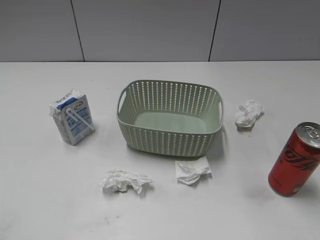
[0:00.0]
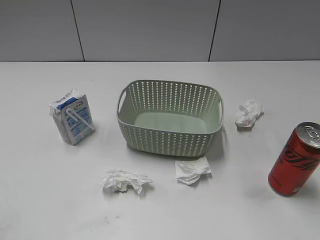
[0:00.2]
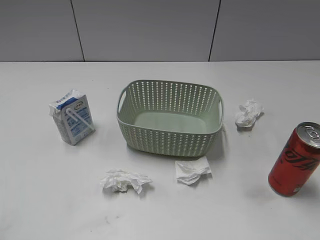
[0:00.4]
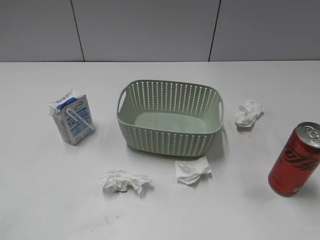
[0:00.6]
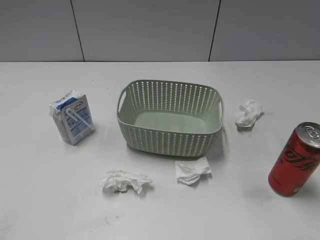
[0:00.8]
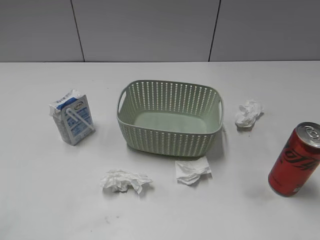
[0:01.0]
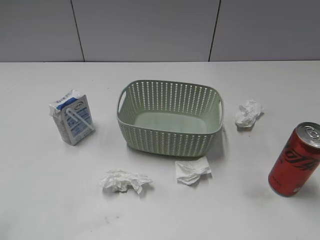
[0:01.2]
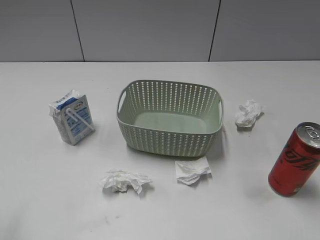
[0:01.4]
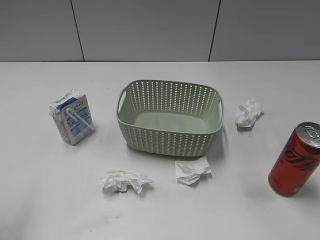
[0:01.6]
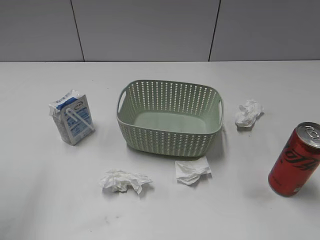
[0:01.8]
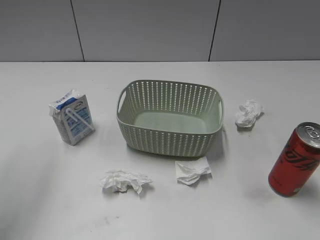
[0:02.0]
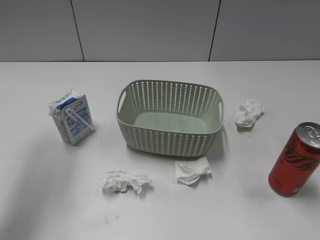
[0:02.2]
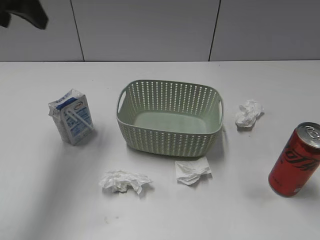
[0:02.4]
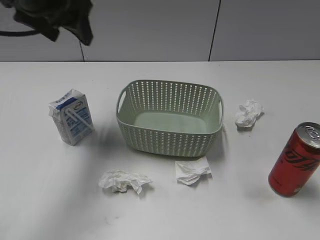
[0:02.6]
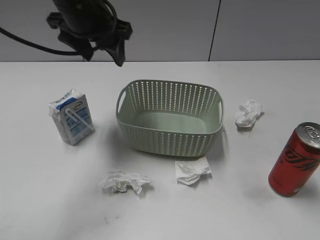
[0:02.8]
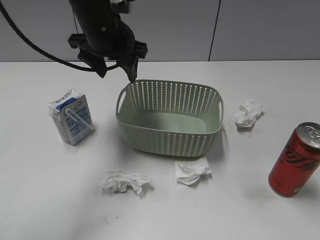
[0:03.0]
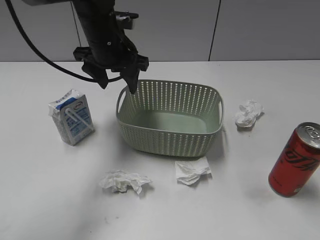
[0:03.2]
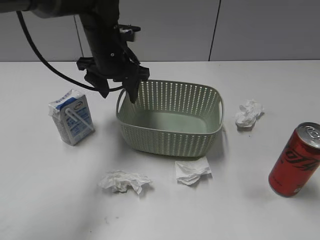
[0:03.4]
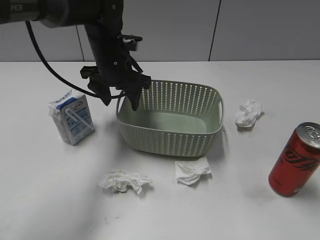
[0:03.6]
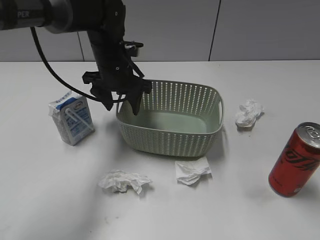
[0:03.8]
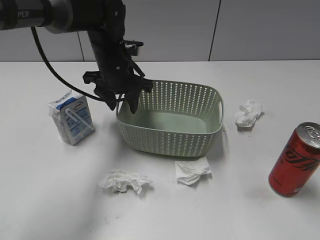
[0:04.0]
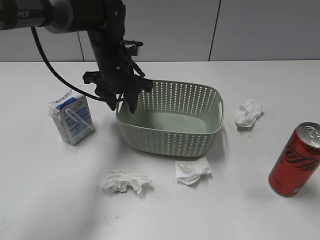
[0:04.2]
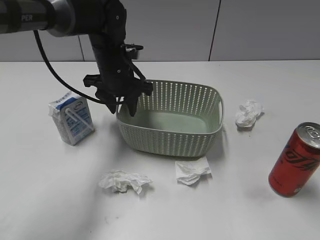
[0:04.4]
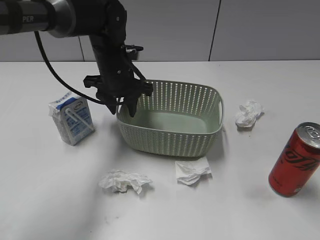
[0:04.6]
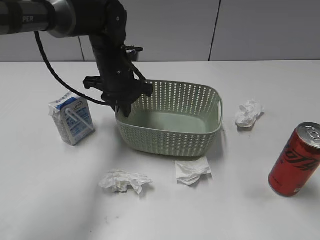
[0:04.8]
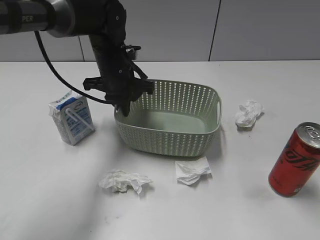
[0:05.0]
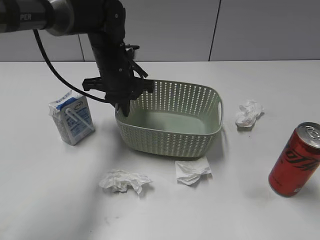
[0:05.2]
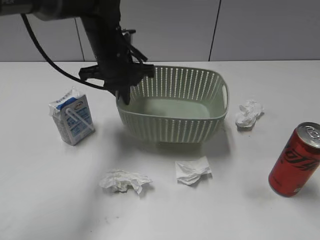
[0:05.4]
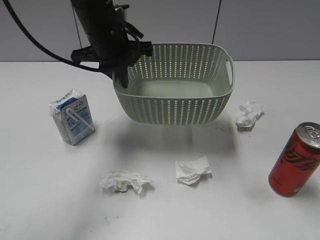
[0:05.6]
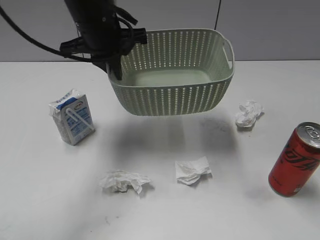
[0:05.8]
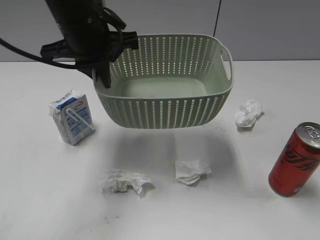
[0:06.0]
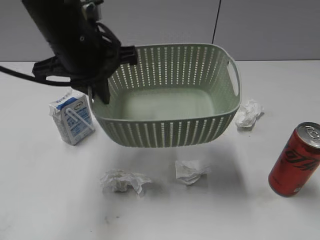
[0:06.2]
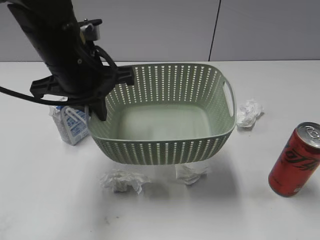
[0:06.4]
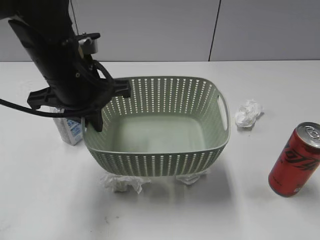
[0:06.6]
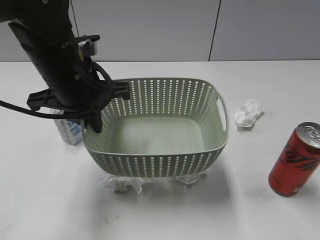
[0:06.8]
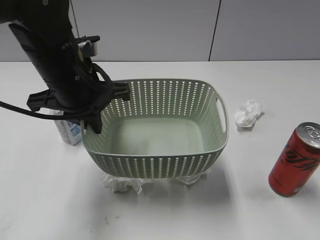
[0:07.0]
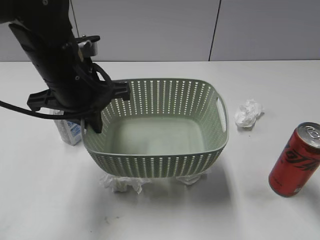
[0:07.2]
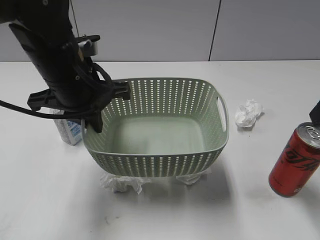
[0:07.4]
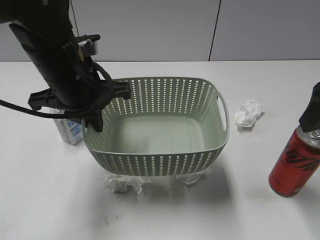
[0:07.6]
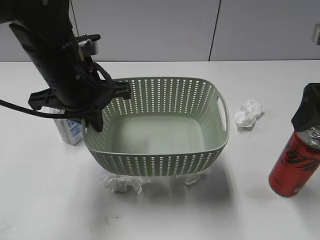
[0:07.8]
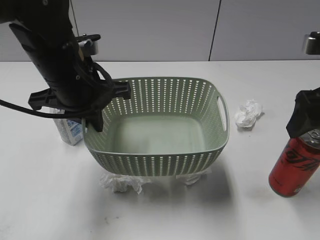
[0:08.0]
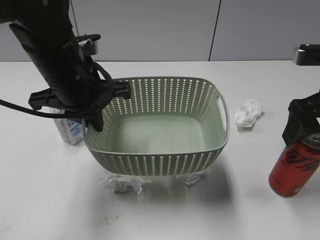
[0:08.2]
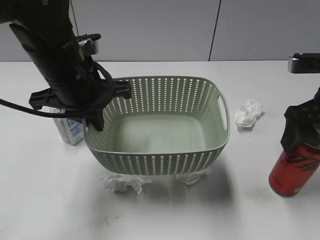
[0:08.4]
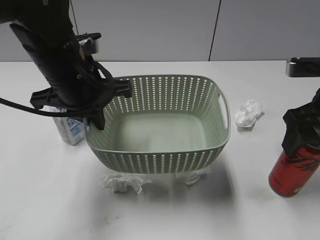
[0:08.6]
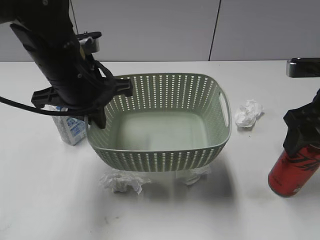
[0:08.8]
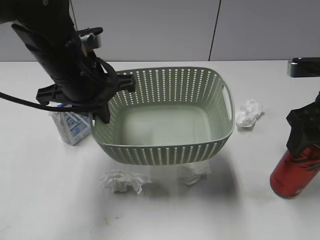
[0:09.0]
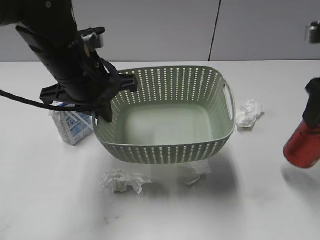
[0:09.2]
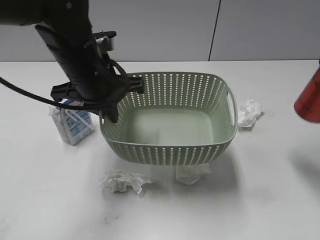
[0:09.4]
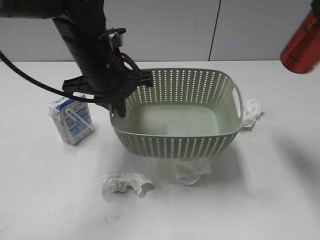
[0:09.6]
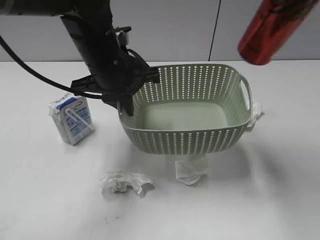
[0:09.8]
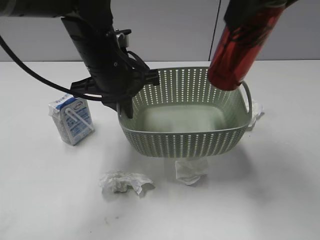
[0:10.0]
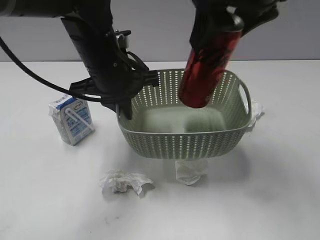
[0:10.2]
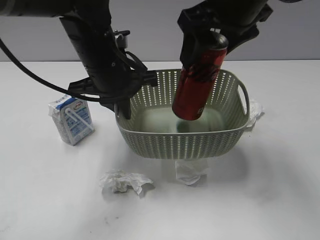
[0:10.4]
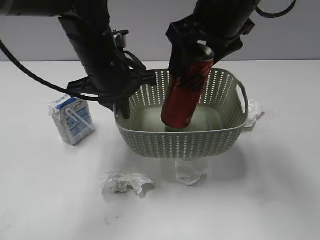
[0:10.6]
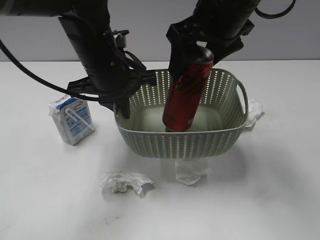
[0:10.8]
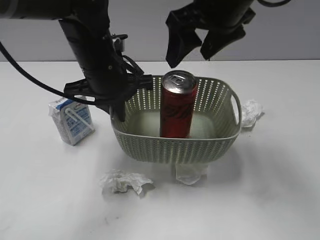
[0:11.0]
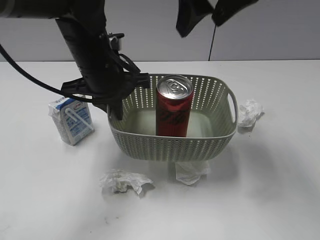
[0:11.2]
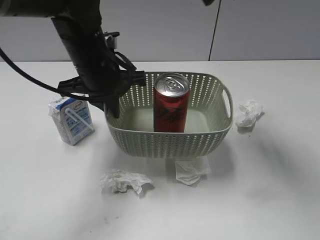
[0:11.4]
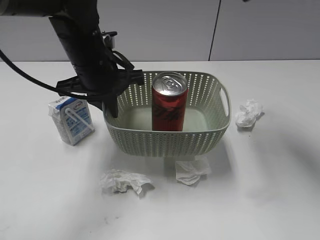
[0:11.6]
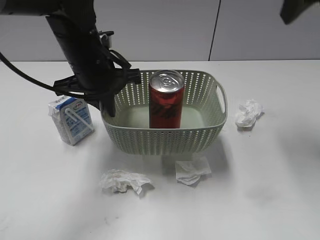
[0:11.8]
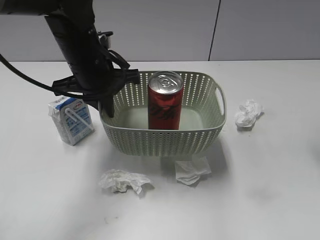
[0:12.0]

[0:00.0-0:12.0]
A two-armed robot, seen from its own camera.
Step, 0:02.4 to 0:05.0: Grasp the basket with left gripper.
Step, 0:05.2 to 0:07.2: Lift the basket with left gripper.
Step, 0:07.4 to 0:08.6: Grasp the cola can with right gripper.
Step, 0:08.8 to 0:10.8: Place the cola can in the basket with right gripper.
0:01.6 to 0:03.0: The left gripper moves forward and to the right, approximately 35 cm.
0:03.0 to 0:04.4: The left gripper goes roughly 10 cm downward.
0:04.4 to 0:06.0: The left gripper travels upward and backward by approximately 15 cm, and closes.
0:06.0 to 0:07.6: The right gripper shifts some 25 cm forward, and opens up. The left gripper travels backward by roughly 5 cm.
0:07.6 to 0:09.0: The right gripper shifts some 5 cm downward, and closes.
0:09.0 to 0:10.4: The left gripper moves about 5 cm, while the right gripper goes about 20 cm to the left and upward.
0:10.4 to 0:12.0: The right gripper is displaced to the right by approximately 15 cm, and opens up.

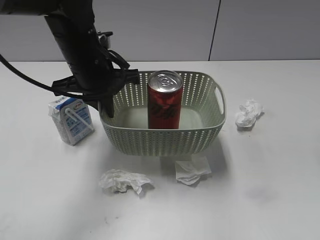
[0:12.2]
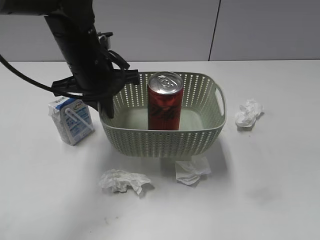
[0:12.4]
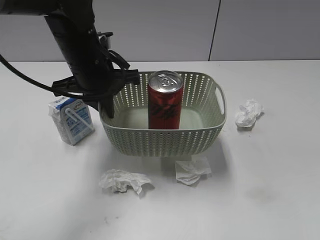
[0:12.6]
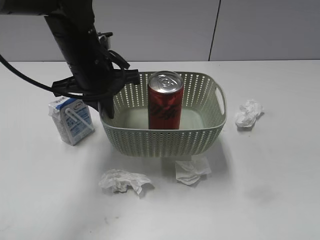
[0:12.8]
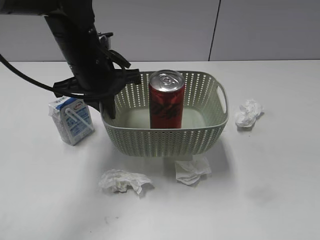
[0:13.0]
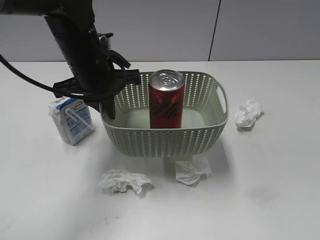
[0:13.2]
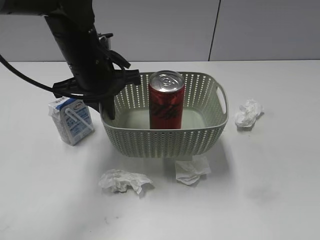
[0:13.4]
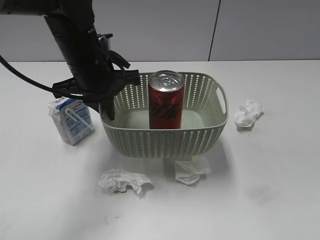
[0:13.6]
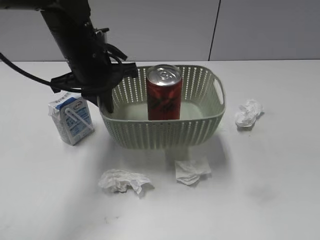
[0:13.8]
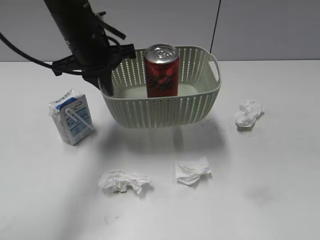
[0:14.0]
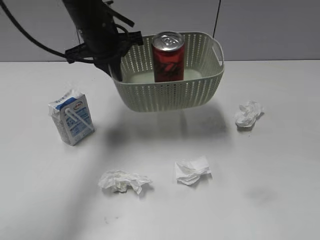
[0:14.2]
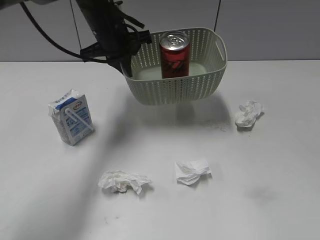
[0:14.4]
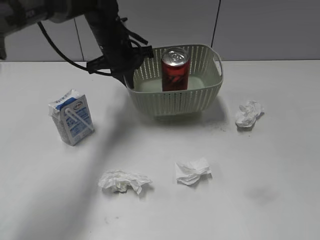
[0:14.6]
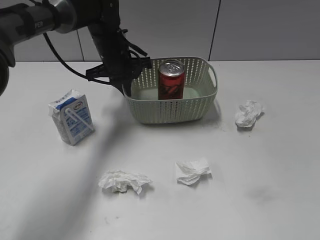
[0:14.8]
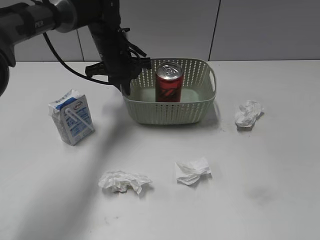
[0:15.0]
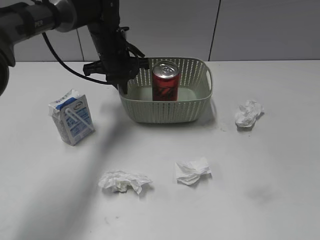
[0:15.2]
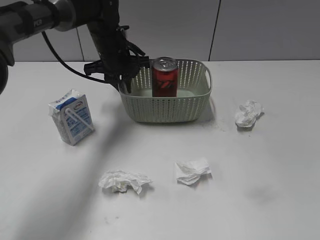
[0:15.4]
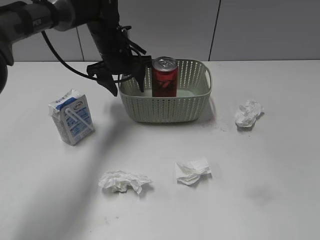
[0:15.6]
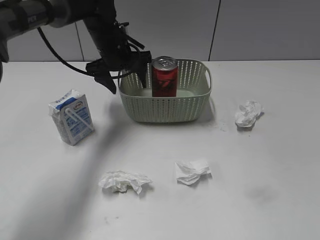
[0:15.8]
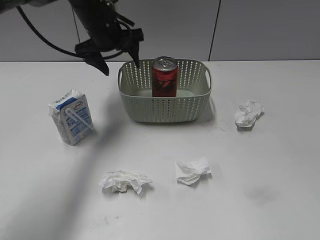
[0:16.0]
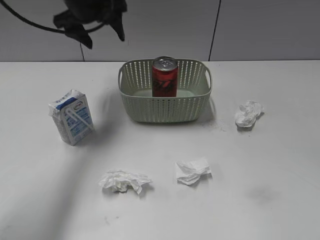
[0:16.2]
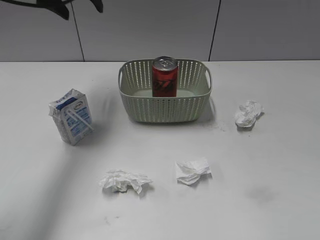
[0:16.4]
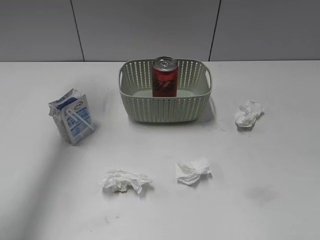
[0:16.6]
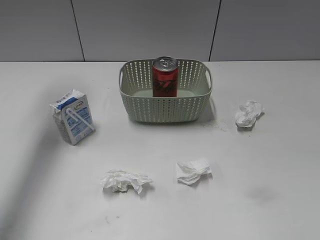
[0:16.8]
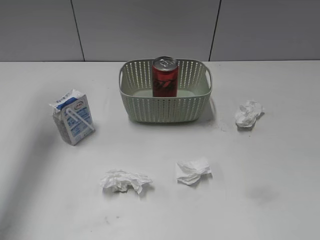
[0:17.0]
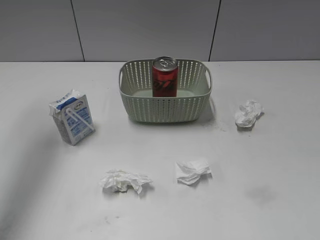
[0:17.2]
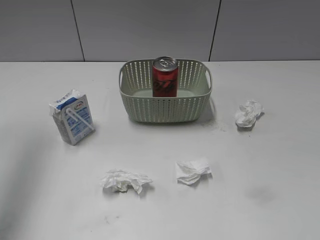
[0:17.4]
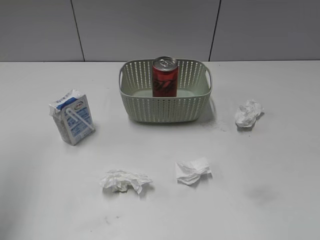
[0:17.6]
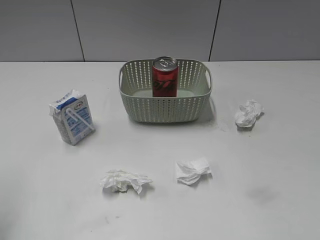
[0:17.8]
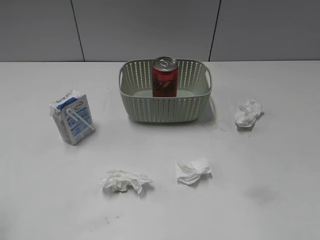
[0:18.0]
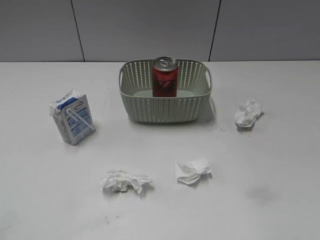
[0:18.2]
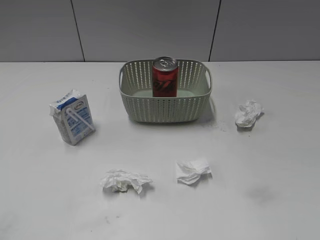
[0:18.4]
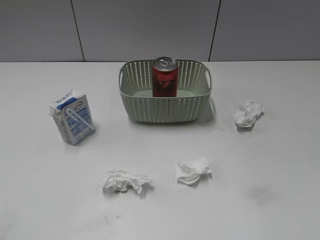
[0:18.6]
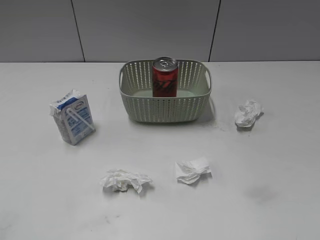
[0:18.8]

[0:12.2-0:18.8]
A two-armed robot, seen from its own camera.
Step, 0:12.2 to 0:15.4: Place the basket on the table with left gripper.
0:12.2 to 0:13.8: The right gripper shifts roughly 25 cm backward.
0:13.8 to 0:15.4: The left gripper moves forward and downward, roughly 15 cm.
0:15.4 to 0:17.2: The left gripper shifts some 35 cm upward and to the left, and opens up.
0:17.2 to 0:18.8: The left gripper moves backward and downward, some 40 cm.
